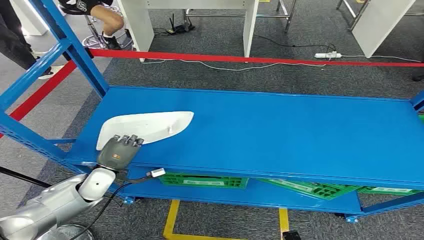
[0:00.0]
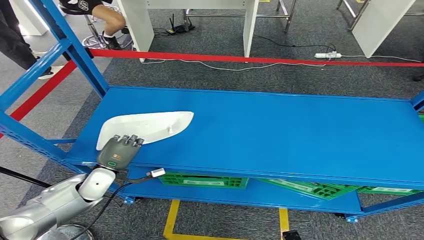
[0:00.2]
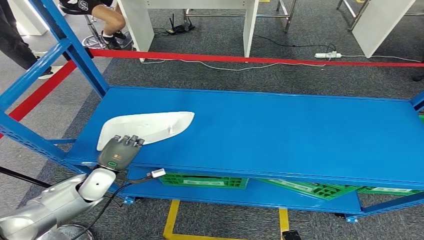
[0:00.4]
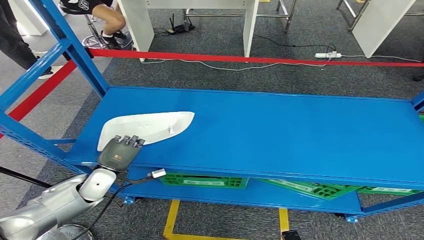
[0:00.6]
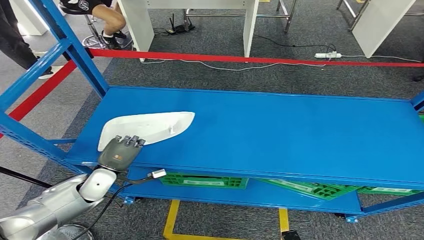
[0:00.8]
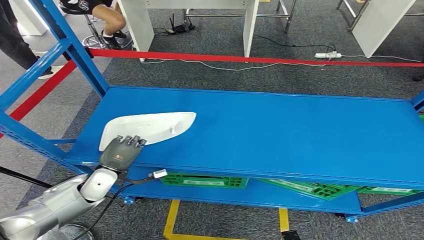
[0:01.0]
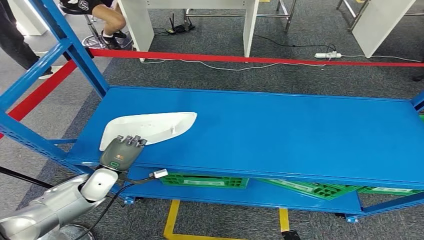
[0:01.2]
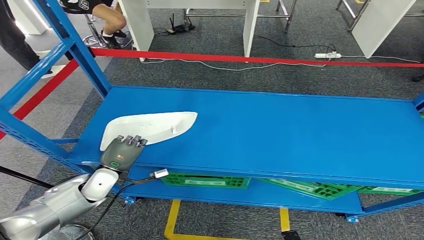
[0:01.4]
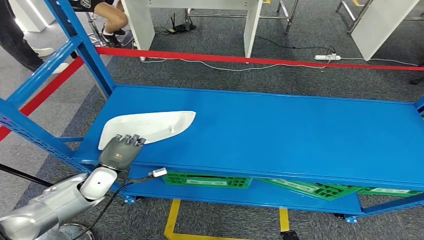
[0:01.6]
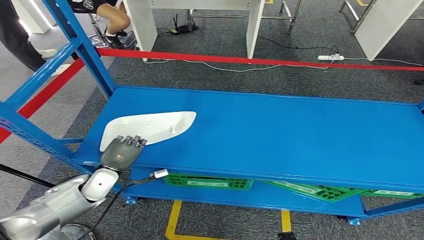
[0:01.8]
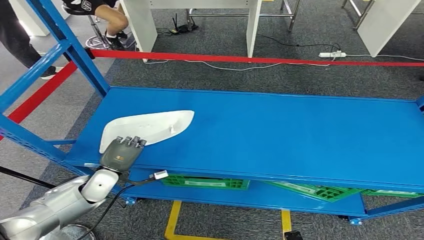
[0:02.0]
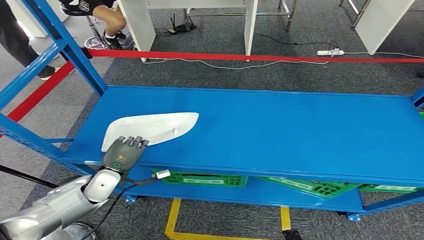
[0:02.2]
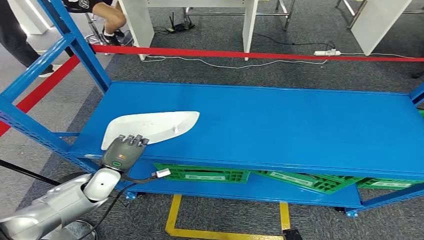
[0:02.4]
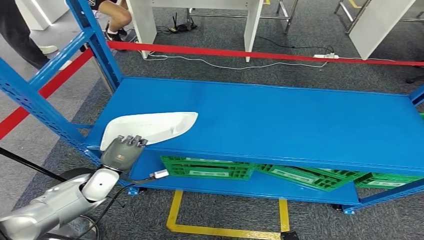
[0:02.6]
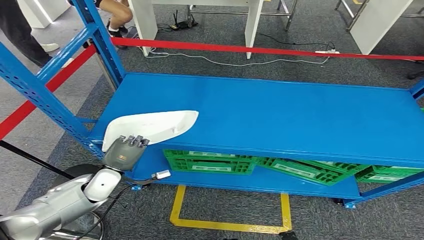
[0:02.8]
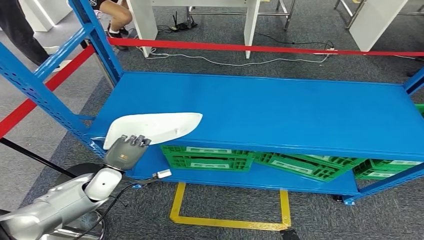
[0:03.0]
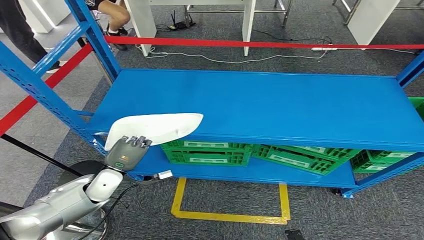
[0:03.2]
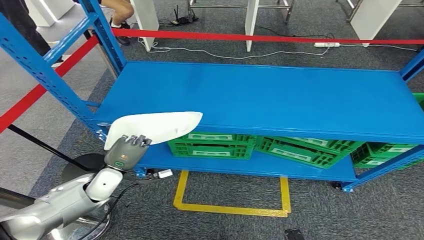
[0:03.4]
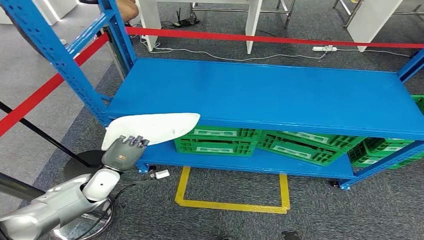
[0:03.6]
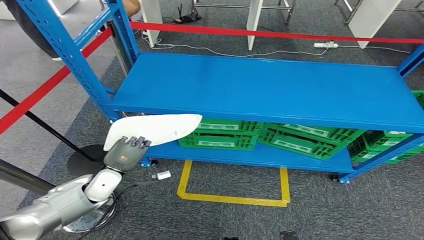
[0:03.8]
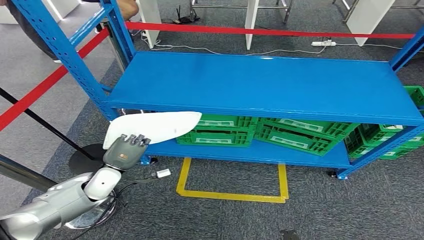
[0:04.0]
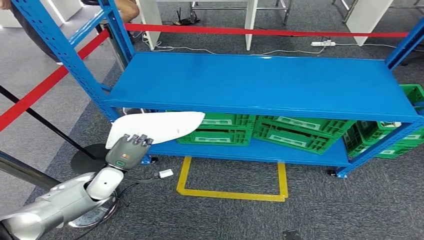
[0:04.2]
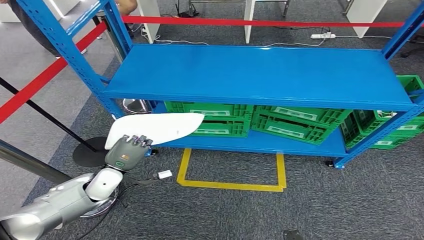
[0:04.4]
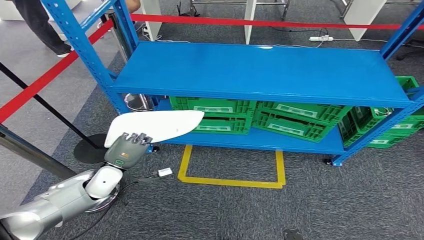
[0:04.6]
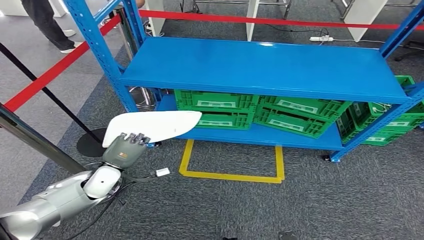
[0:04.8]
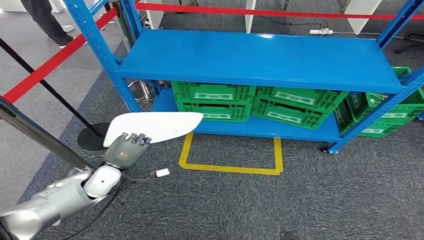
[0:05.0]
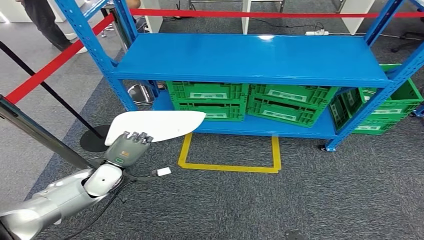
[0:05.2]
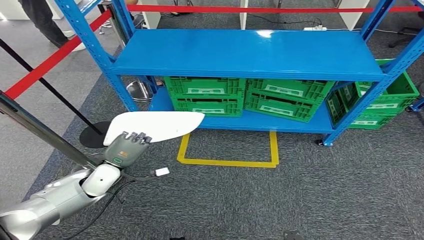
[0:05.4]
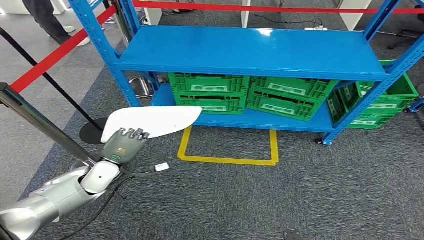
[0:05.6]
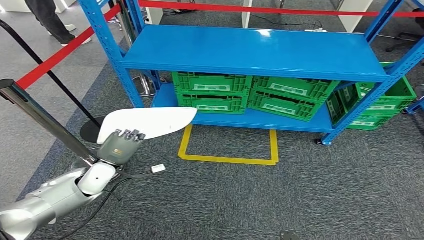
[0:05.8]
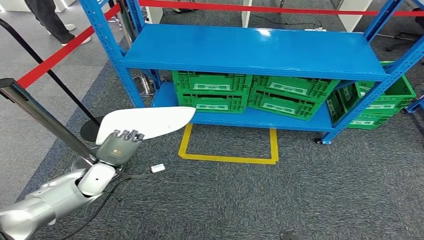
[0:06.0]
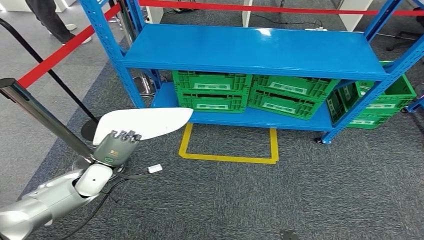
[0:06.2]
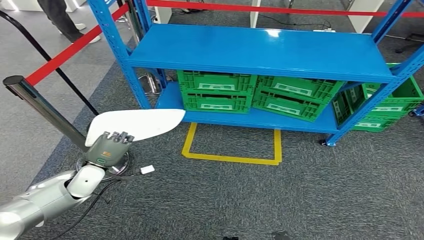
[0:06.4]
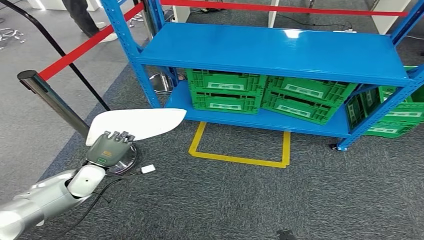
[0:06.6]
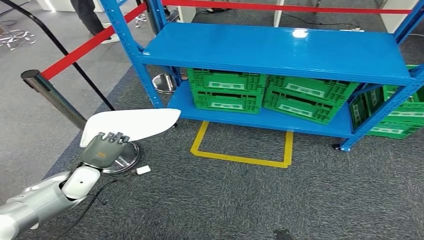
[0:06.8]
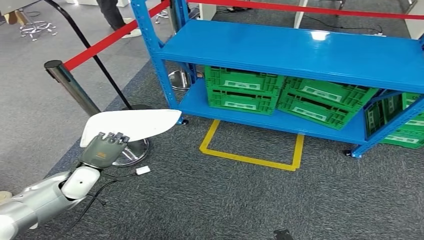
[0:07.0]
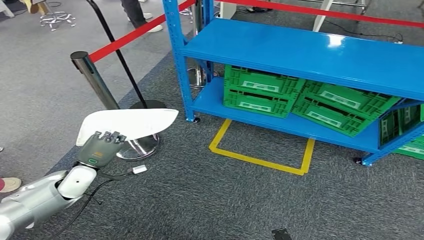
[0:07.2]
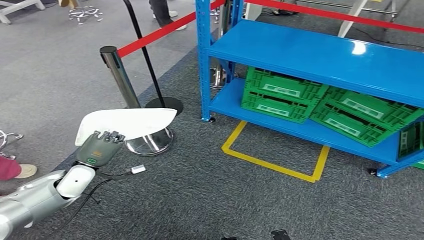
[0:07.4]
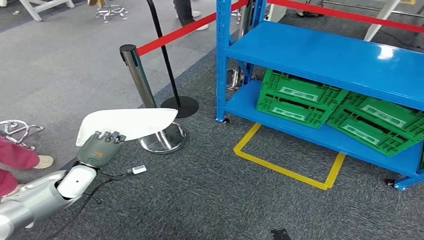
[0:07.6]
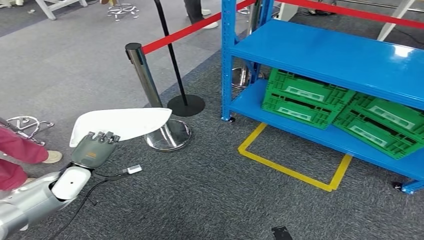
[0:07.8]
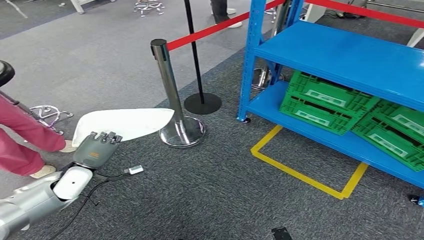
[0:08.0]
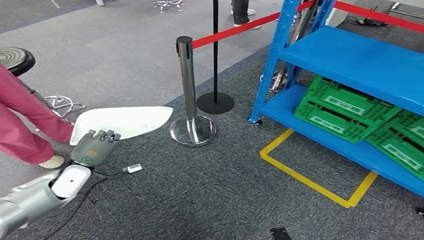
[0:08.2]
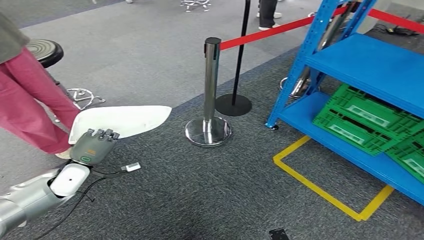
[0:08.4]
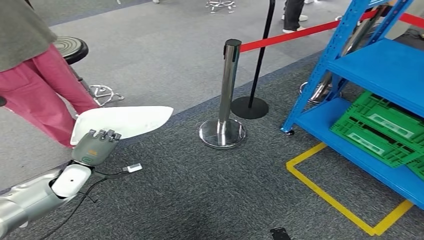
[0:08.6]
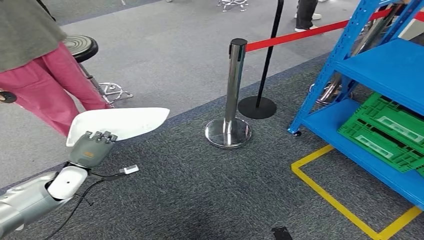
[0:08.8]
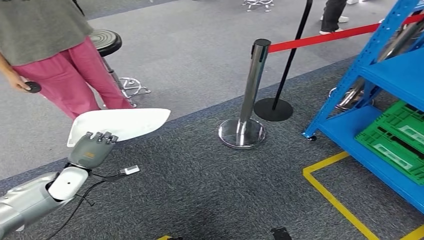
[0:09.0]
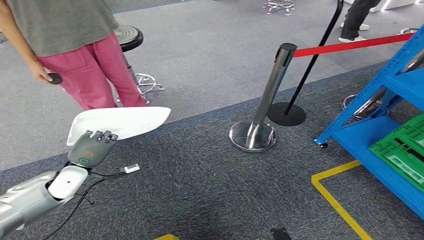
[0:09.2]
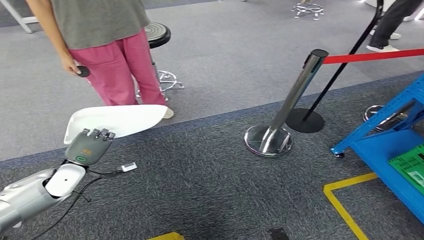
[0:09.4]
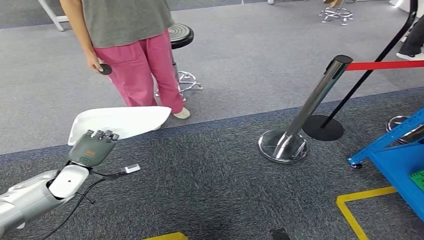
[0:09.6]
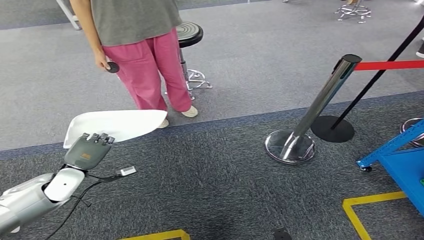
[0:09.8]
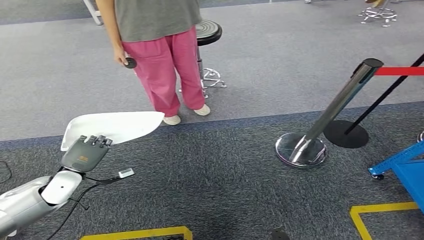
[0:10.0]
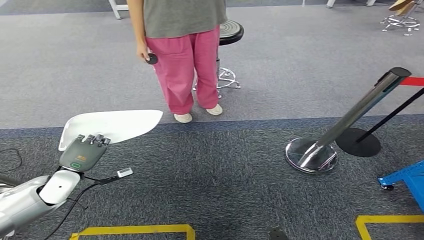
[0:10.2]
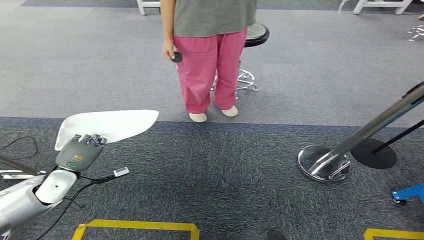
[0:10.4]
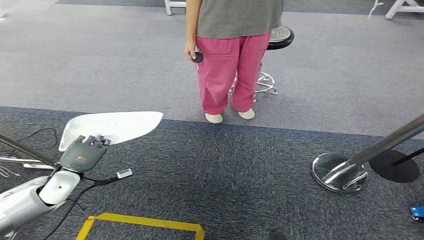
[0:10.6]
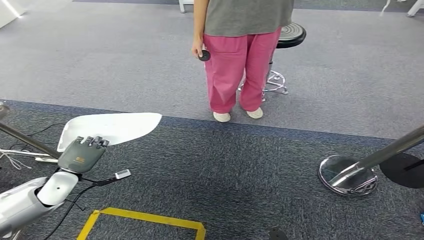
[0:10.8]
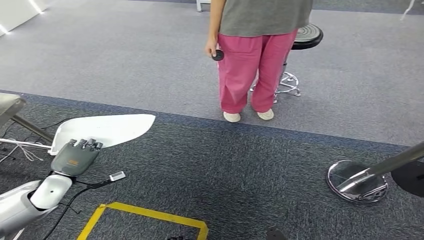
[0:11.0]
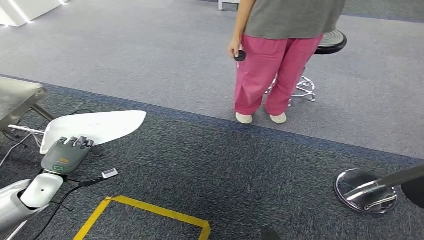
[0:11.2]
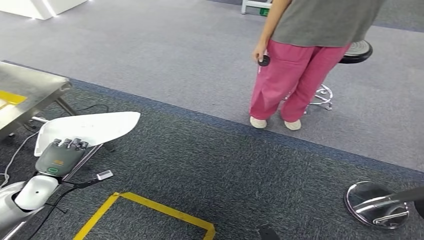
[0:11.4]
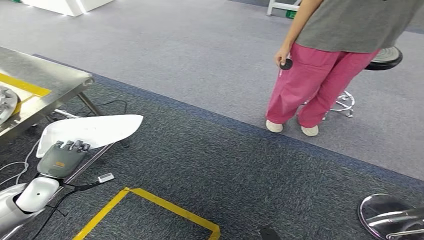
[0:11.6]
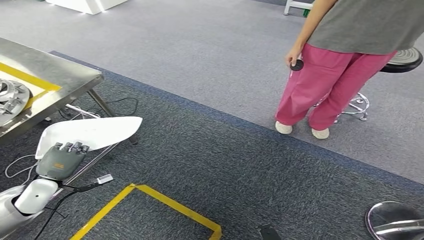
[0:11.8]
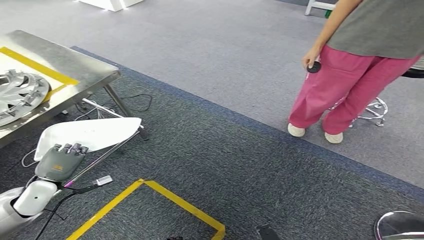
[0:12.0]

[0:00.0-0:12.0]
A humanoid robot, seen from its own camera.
Step, 0:00.0 to 0:02.8: Pick up the small component from the shelf.

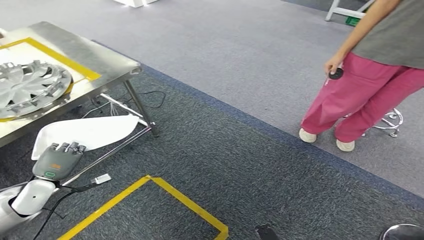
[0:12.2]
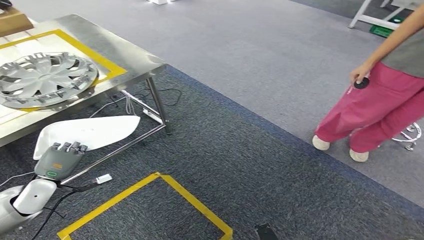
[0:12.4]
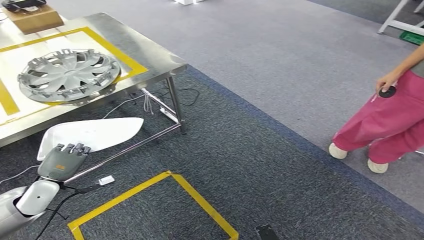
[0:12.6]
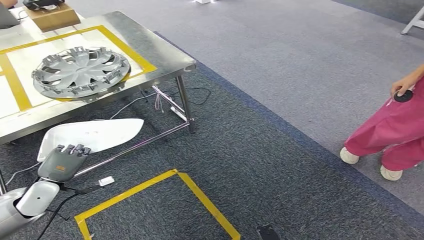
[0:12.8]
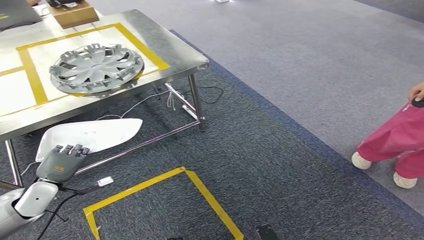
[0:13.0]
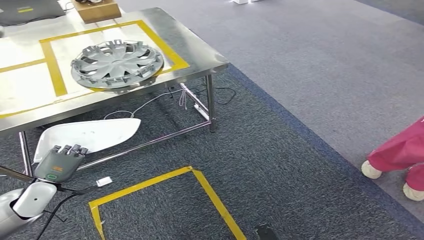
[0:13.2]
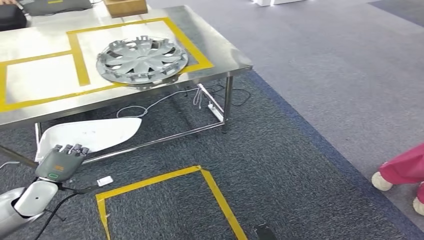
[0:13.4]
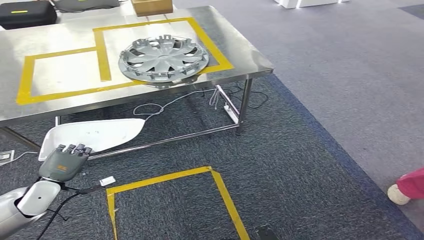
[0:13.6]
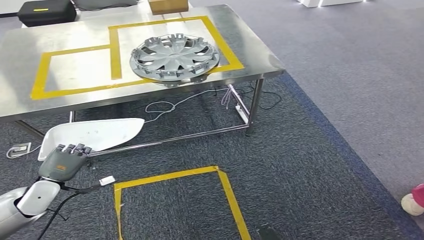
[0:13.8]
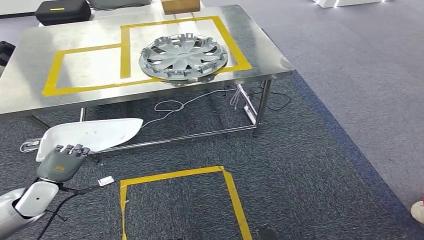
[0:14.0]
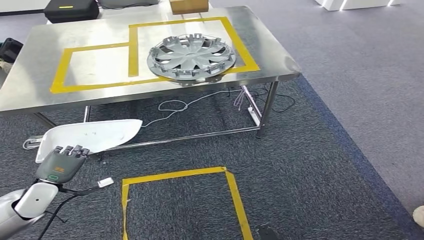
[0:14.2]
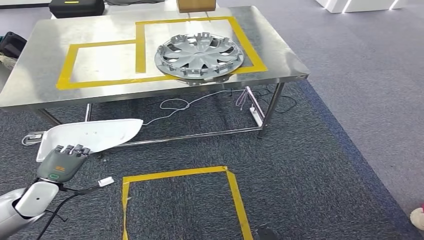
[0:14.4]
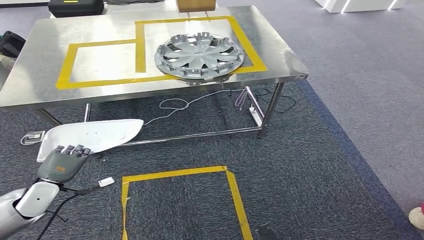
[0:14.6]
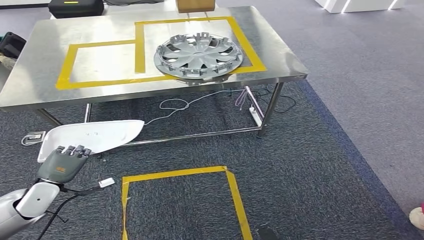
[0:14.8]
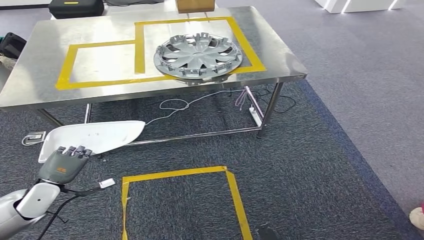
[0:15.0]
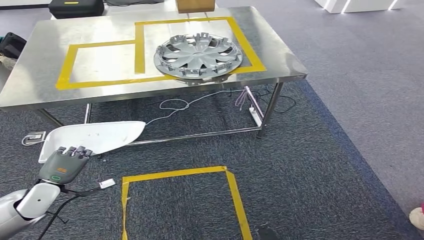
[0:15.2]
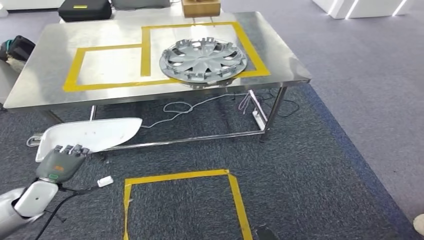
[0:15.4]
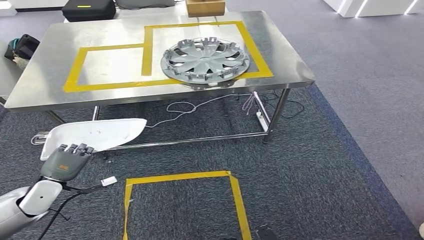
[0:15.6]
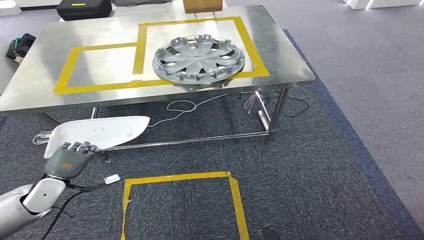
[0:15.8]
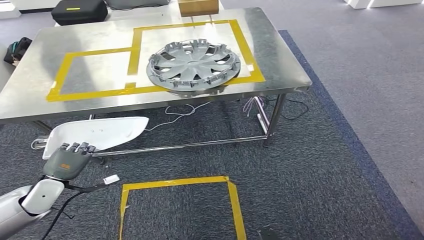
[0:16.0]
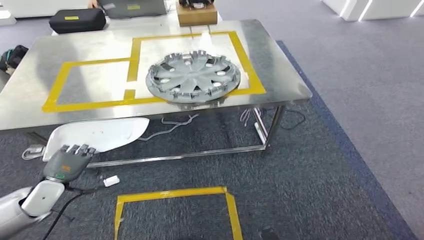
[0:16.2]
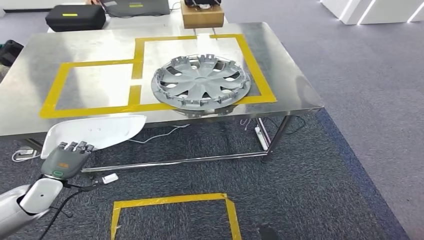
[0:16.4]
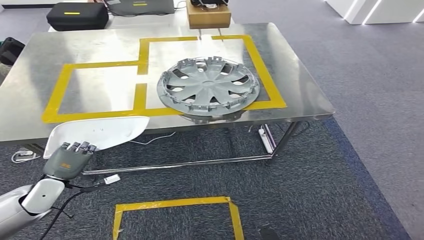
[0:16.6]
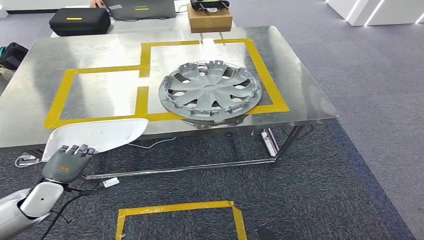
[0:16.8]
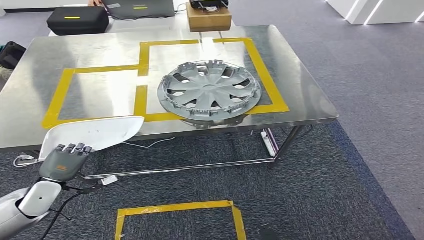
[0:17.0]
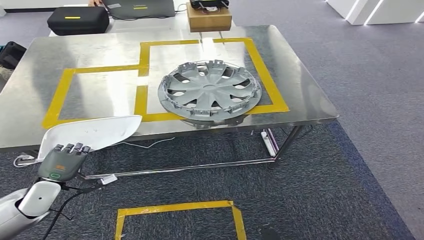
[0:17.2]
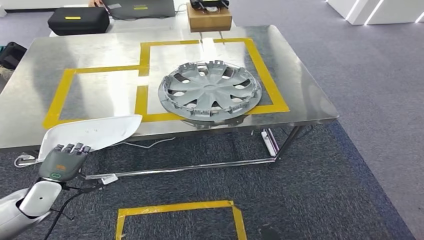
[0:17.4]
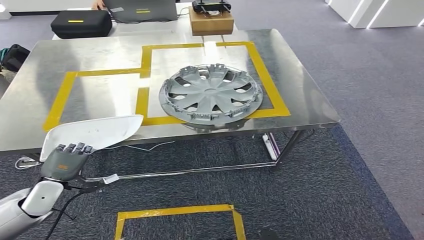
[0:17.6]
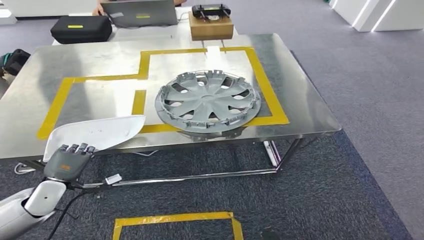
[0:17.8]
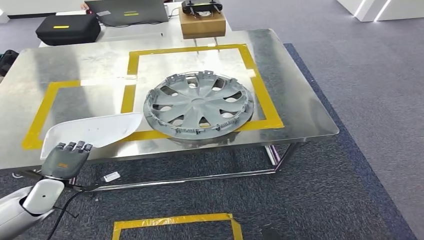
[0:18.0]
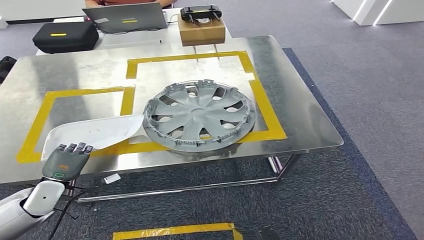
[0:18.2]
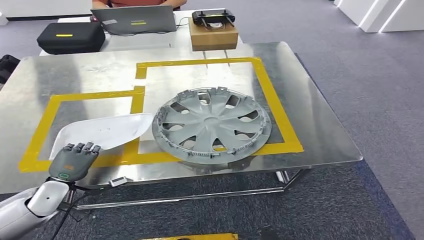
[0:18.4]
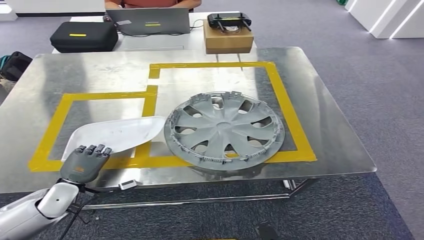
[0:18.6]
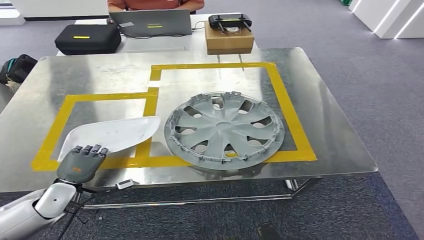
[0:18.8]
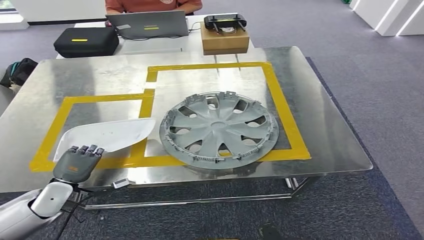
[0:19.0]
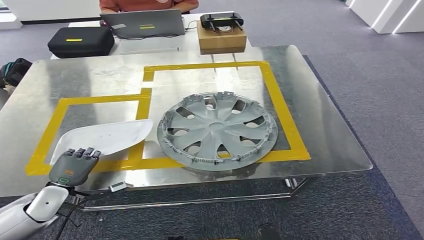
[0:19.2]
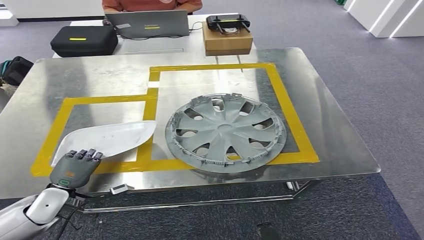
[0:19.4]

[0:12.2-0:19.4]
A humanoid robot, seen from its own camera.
Step, 0:12.2 to 0:15.4: Move the small component to the workbench.
